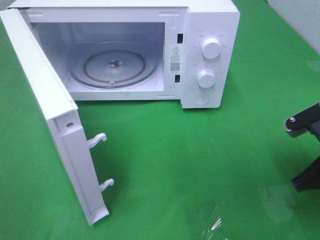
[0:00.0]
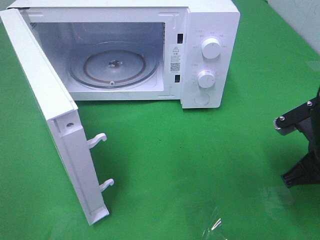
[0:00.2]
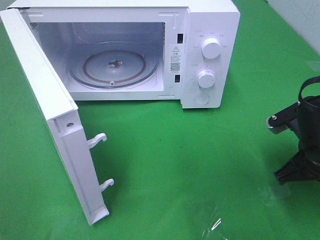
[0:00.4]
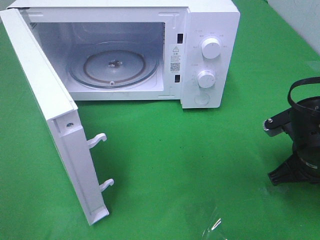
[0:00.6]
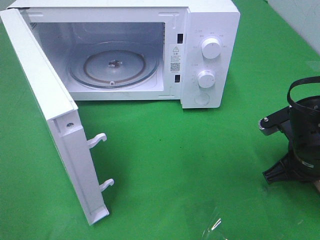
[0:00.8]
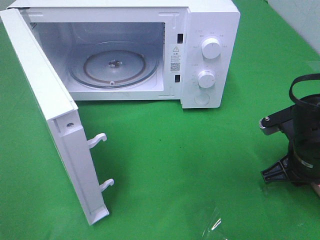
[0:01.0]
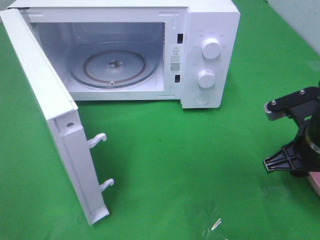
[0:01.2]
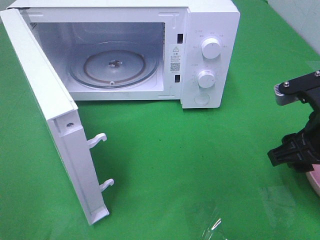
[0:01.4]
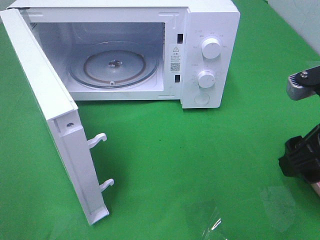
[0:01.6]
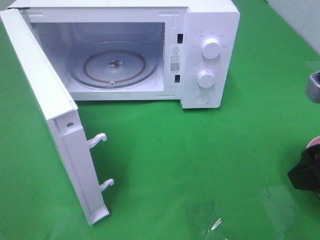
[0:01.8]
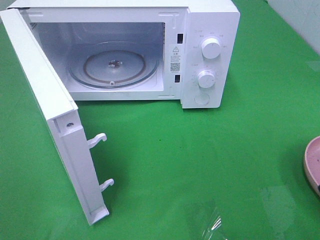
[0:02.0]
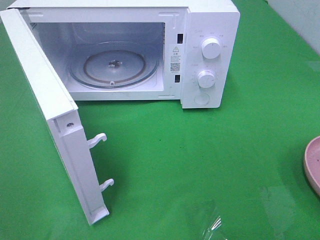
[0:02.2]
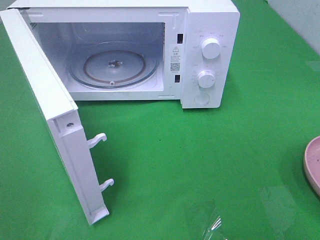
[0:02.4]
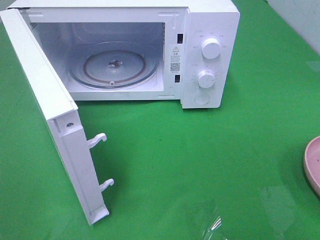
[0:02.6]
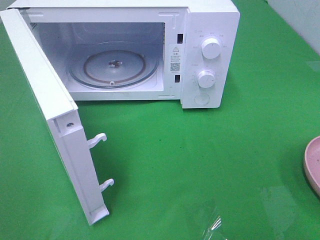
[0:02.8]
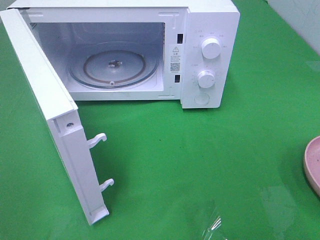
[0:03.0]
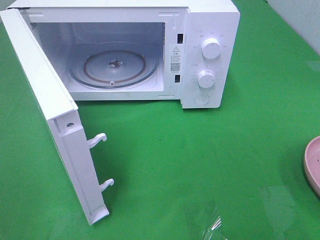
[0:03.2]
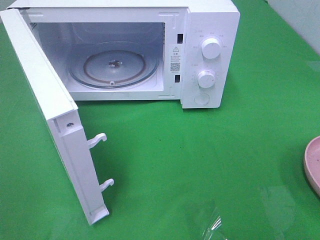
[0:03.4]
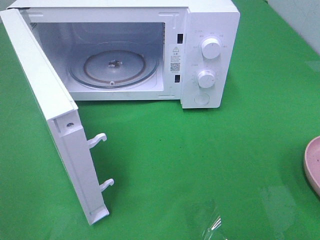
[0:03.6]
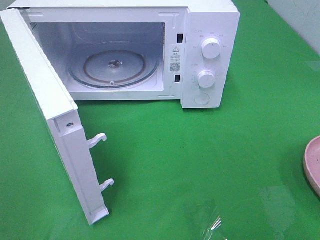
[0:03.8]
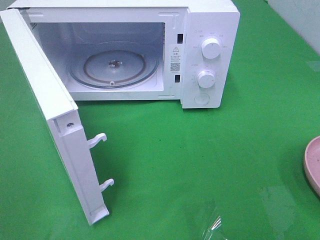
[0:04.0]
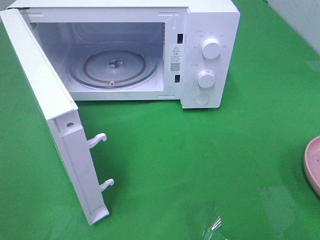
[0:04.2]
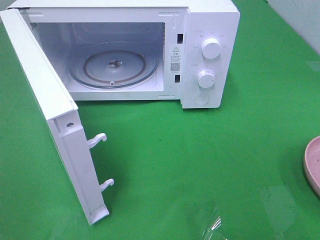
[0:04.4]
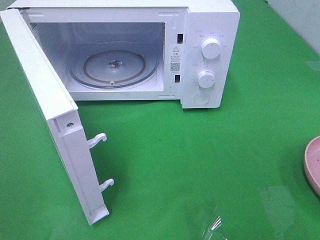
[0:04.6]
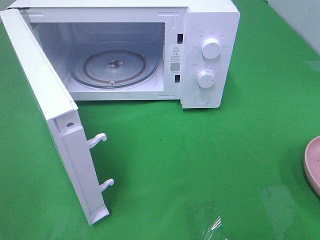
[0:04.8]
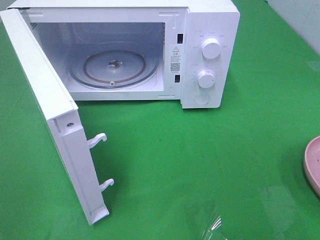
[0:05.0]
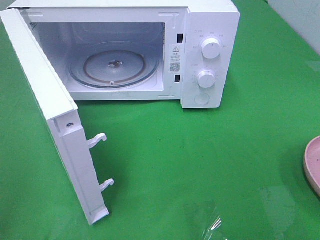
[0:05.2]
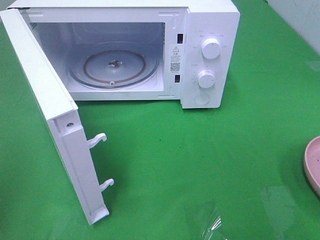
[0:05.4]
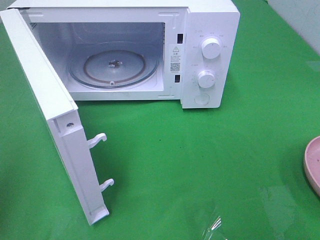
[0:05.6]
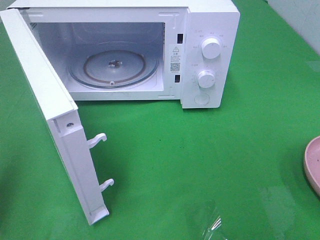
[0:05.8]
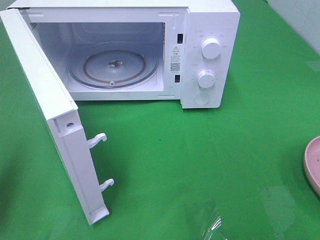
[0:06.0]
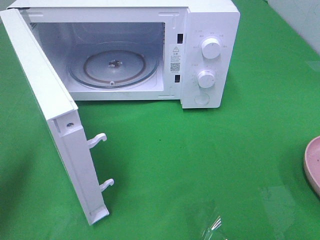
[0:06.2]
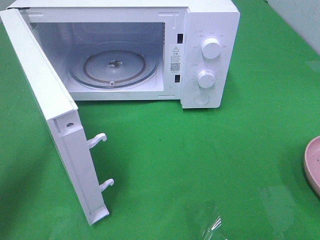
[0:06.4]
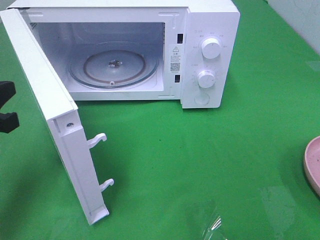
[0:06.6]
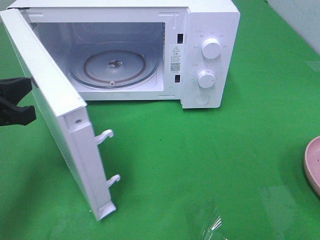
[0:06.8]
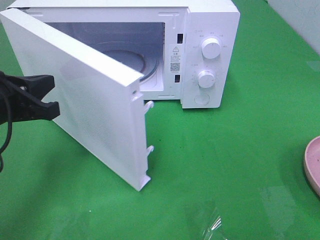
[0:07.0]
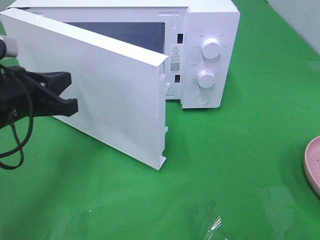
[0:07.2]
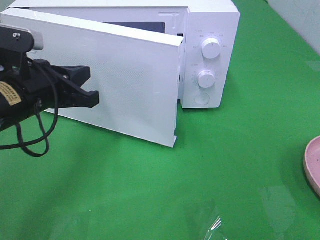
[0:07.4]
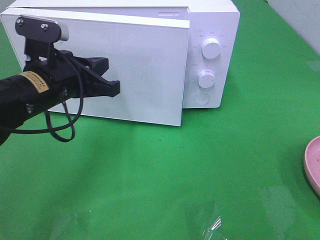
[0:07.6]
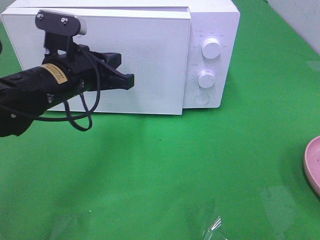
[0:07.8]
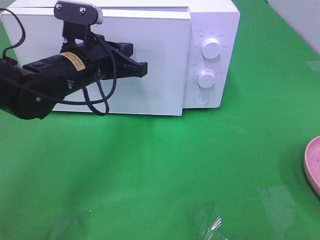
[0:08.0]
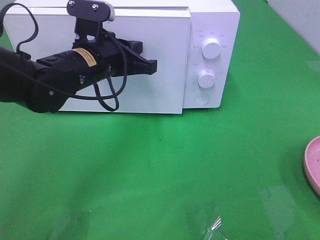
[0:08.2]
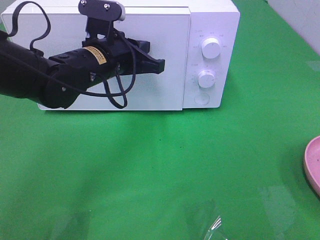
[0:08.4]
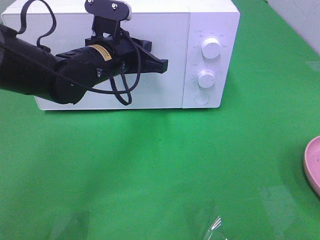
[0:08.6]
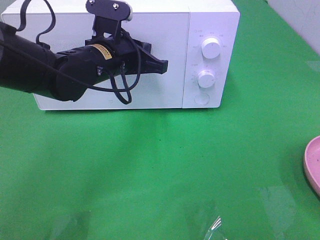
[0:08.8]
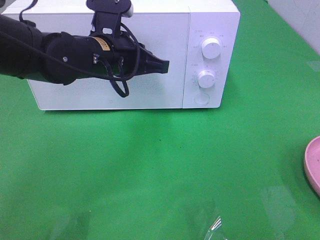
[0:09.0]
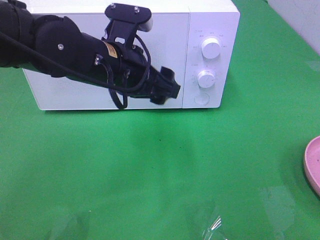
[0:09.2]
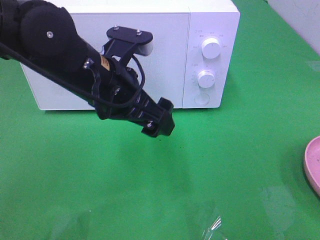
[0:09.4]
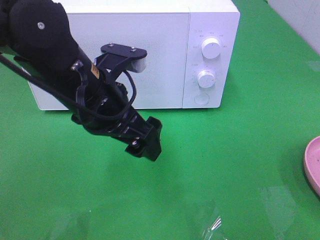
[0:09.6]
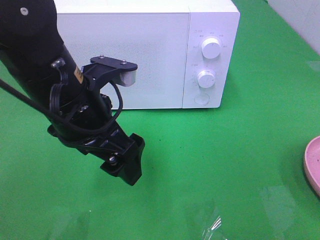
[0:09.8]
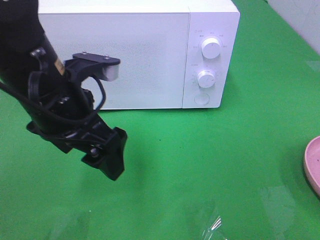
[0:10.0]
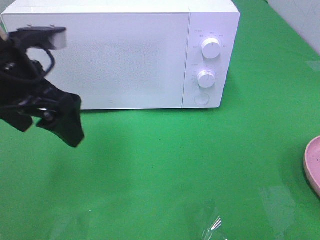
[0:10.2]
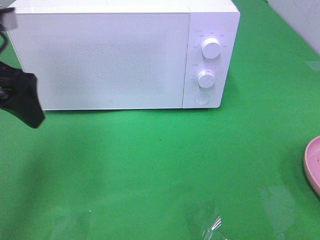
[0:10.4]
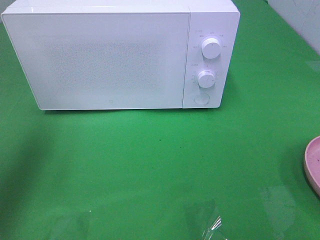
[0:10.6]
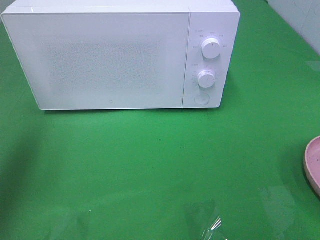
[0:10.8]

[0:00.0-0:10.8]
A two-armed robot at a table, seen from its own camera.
Task of the whole recording: Heat the burger.
Step, 0:01.6 to 0:09.2: Left hand: close the microwave door.
0:00.0 to 0:01.6: The right gripper travels upward by approximately 10 cm, and opens.
0:01.6 to 0:03.0: The right gripper goes about 20 cm backward and to the right.
0:03.0 to 0:04.6: Neither gripper changes place.
0:04.6 to 0:06.2: The left gripper heads forward, covering roughly 15 cm, and closes its fingers.
0:06.2 to 0:07.8: The left gripper moves to the right and forward, approximately 20 cm.
0:07.8 to 0:09.2: The left gripper goes roughly 5 cm to the right, and opens up.
0:09.2 to 0:10.8: The left gripper travels to the left and upward by roughly 30 cm.

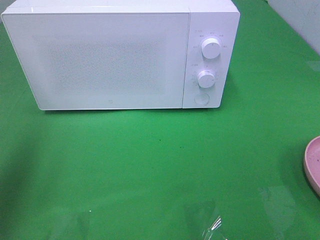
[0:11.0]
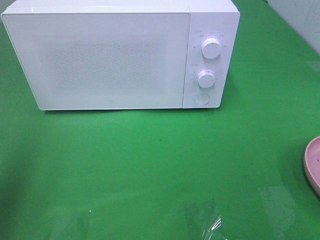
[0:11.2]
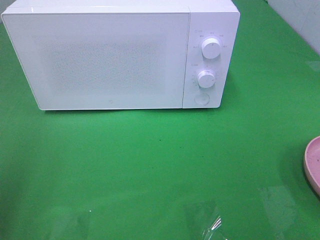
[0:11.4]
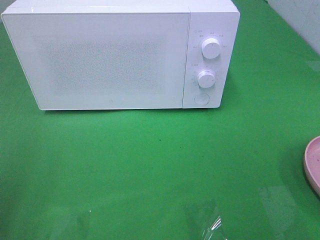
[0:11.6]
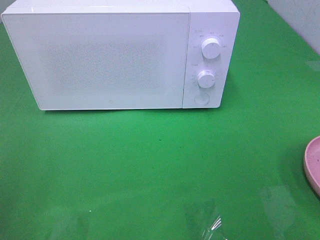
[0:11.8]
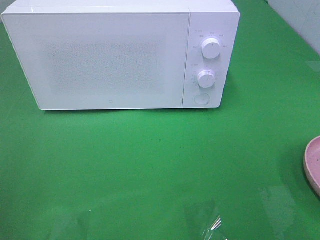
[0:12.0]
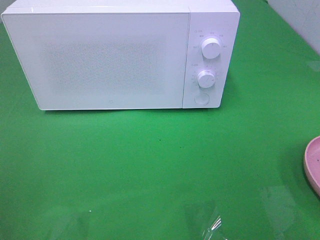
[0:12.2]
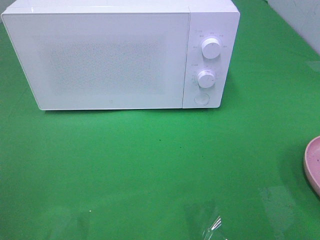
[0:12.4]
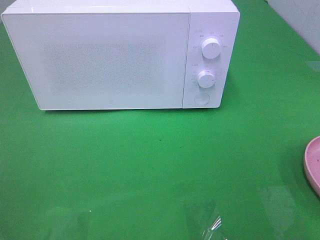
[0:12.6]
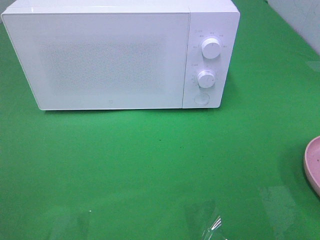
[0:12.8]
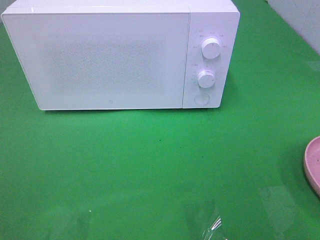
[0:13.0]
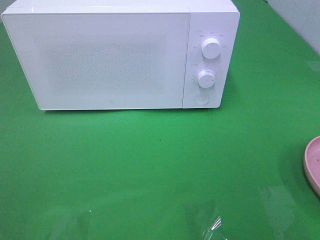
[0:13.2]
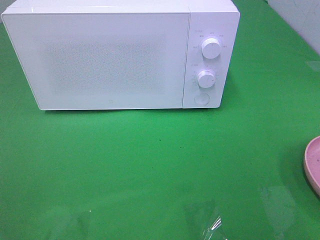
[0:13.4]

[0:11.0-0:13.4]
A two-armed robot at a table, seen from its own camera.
Task of the whole recording: Heat the burger.
0:11.0 to 0:12.2: The left gripper moves backward and downward, approximately 15 cm.
